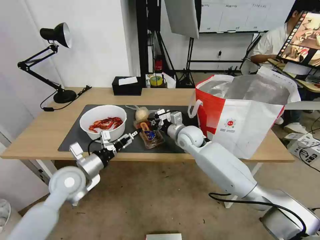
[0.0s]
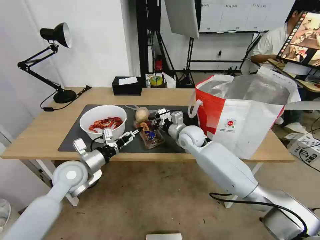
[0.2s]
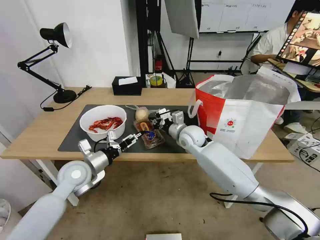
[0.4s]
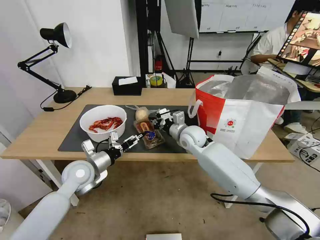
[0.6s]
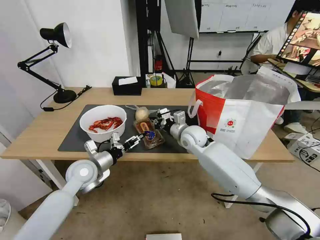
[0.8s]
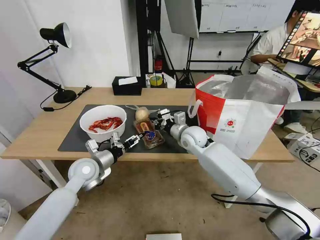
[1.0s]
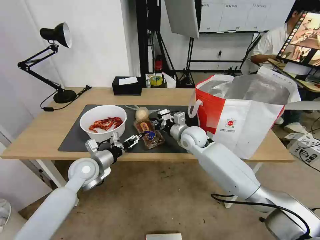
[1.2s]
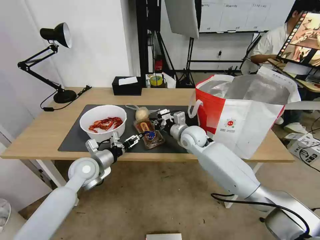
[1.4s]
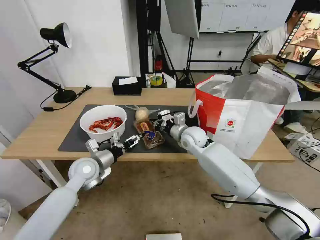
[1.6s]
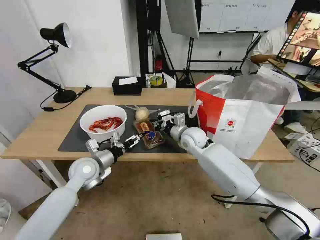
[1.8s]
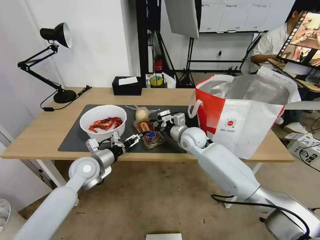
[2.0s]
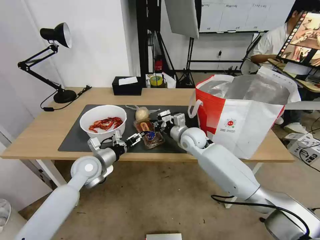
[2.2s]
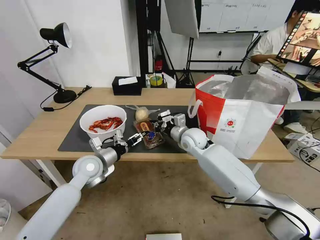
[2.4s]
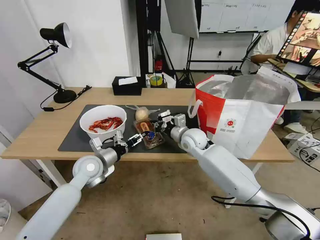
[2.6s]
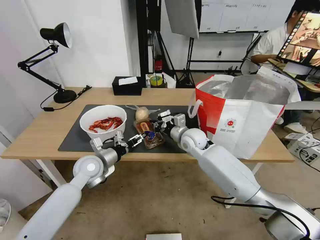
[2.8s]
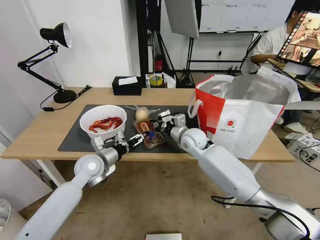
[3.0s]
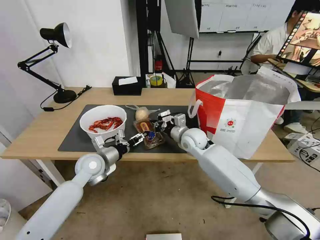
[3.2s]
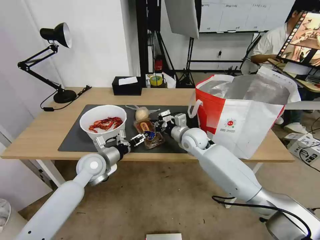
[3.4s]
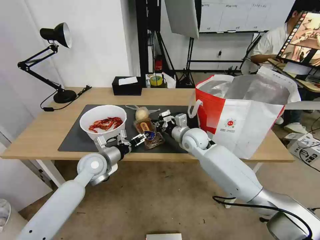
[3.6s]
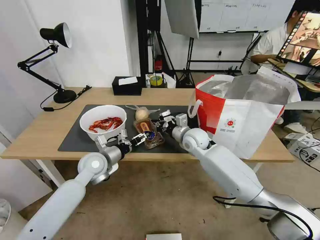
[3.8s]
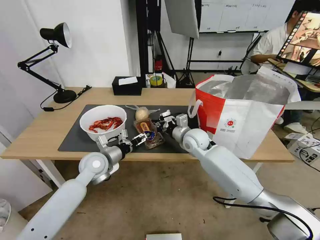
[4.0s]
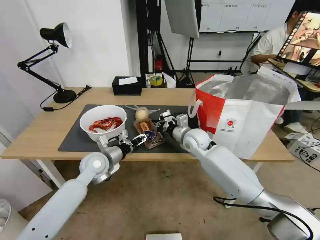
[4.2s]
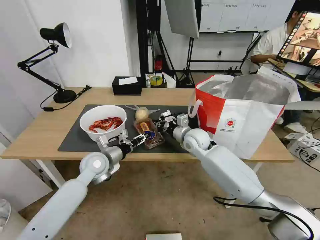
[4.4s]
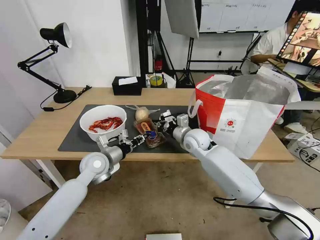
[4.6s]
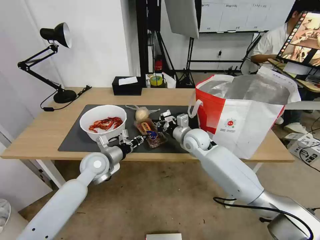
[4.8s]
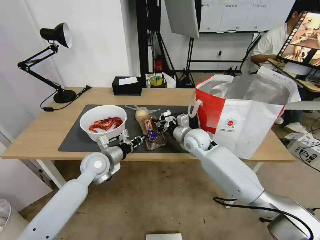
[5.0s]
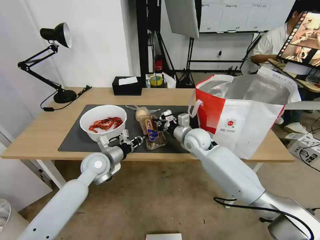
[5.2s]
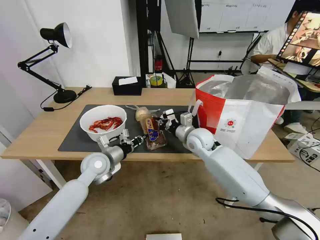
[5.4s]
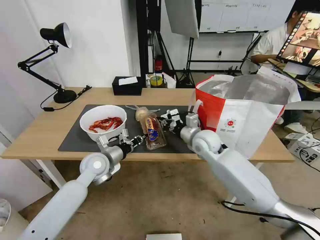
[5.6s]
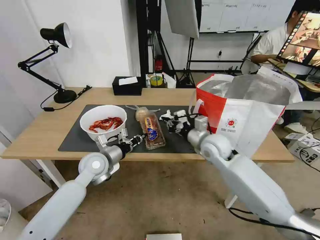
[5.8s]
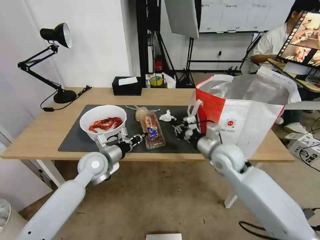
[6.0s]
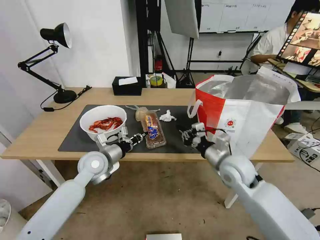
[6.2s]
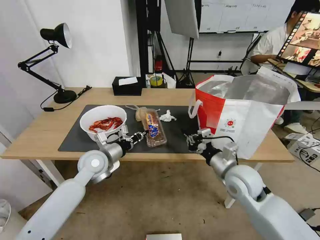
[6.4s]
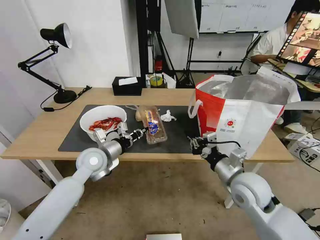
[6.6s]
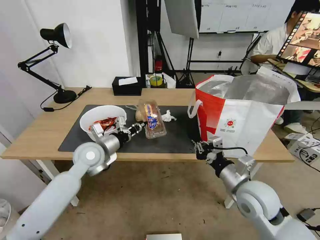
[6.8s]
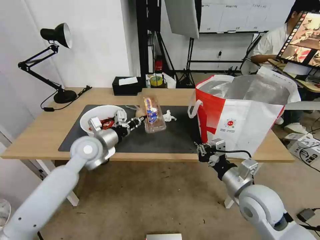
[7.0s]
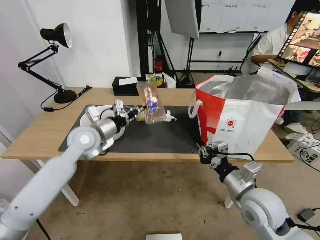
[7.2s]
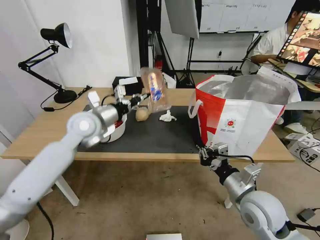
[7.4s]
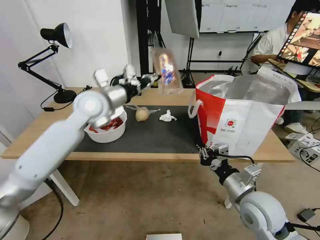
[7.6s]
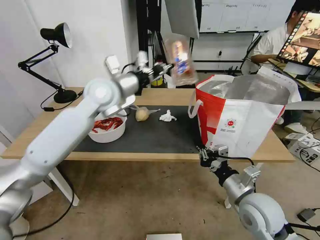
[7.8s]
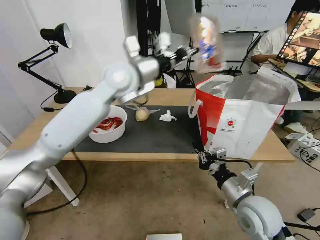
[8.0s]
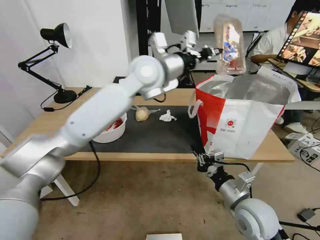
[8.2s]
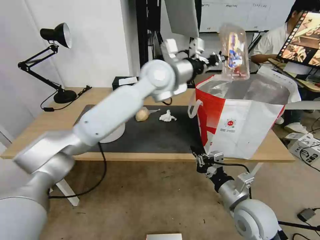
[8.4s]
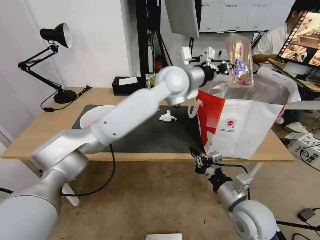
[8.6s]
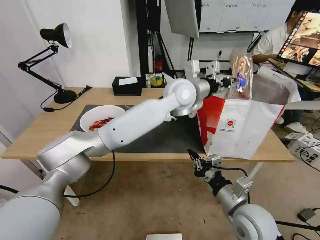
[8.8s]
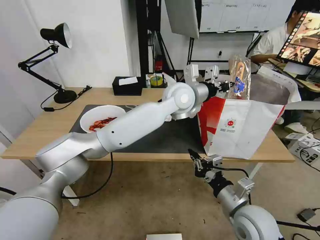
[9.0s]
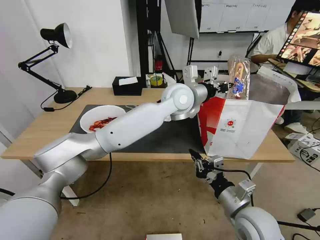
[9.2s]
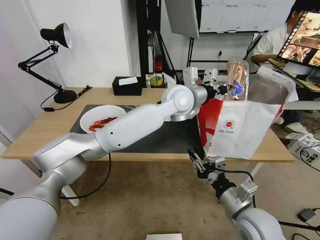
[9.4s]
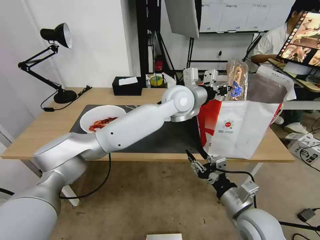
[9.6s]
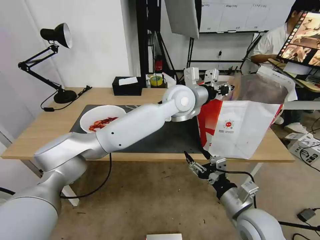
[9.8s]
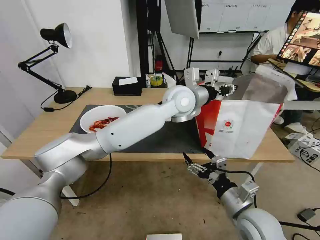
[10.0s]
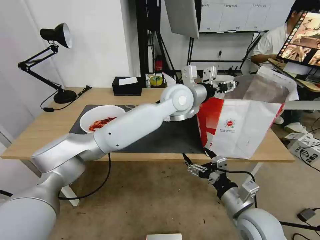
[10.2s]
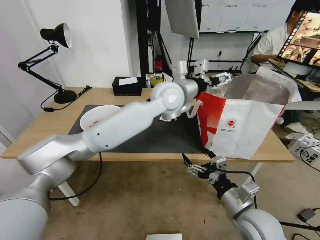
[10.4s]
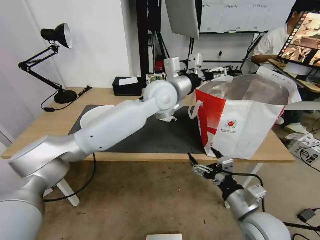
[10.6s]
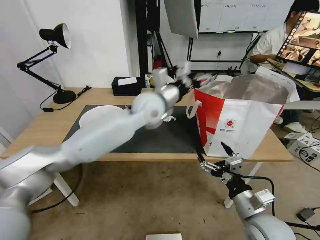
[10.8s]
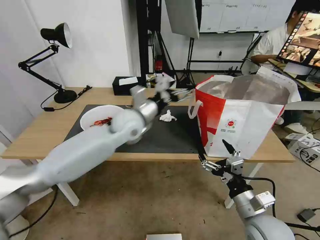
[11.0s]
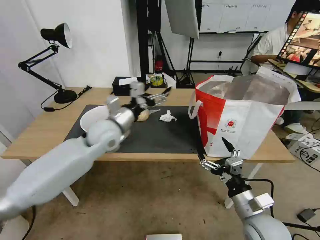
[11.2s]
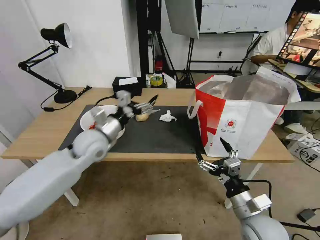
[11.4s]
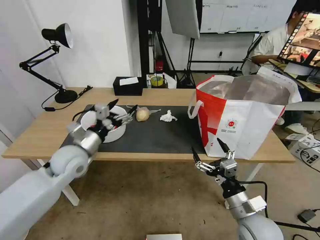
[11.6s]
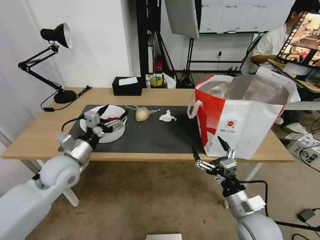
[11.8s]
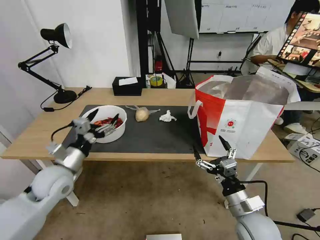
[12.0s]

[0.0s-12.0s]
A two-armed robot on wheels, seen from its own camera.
Task of the whole recording: Pick up the trash from the table and place it into the takeout bag.
0.0s to 1.6s: The left gripper is displaced forward by approximately 5 cm.
1.6s to 3.0s: There are only small adjustments of the grippers.
3.0s to 4.4s: The left gripper closes.
4.4s to 6.0s: The right gripper moves backward and to the right, about 10 cm, while the left gripper closes.
6.0s to 7.6s: The left gripper is displaced upward by approximately 20 cm, while the right gripper goes about 15 cm backward.
7.6s to 9.0s: The left gripper is displaced to the right by roughly 25 cm.
9.0s to 10.4s: The left gripper opens up. Meanwhile the right gripper opens.
10.4s to 12.0s: The left gripper is displaced to the left, downward and backward by roughly 40 cm.

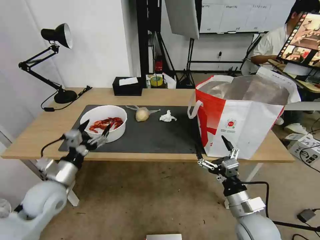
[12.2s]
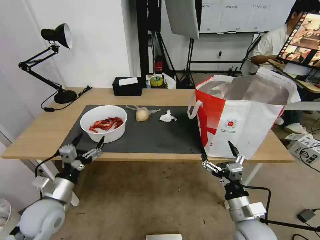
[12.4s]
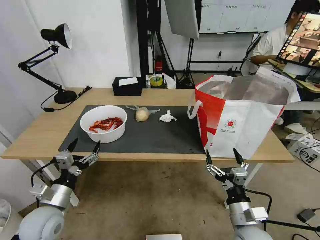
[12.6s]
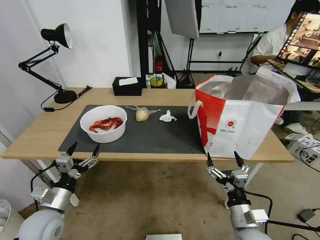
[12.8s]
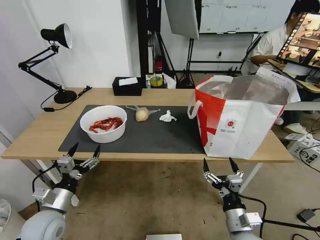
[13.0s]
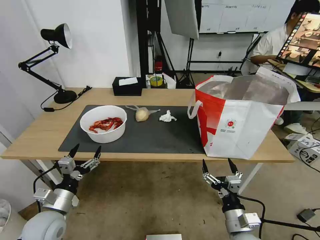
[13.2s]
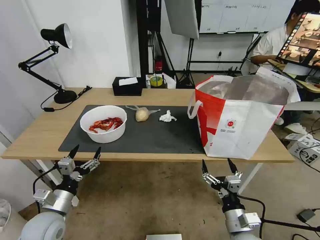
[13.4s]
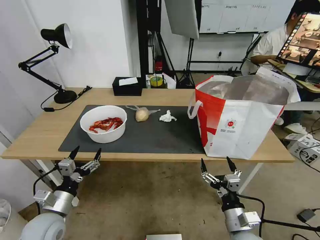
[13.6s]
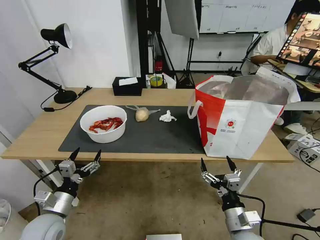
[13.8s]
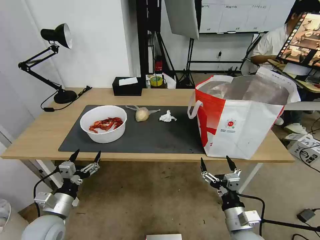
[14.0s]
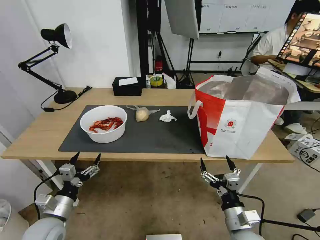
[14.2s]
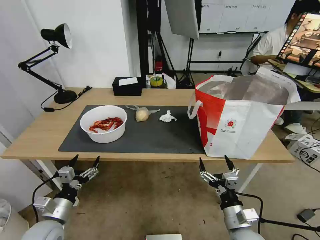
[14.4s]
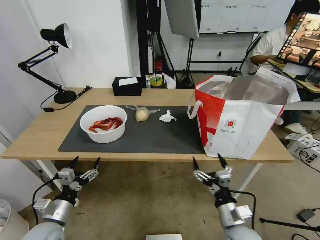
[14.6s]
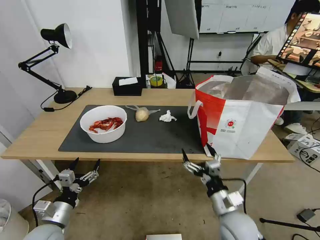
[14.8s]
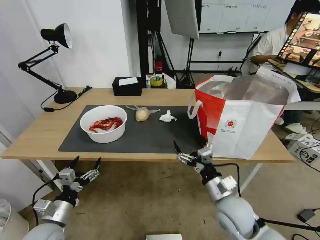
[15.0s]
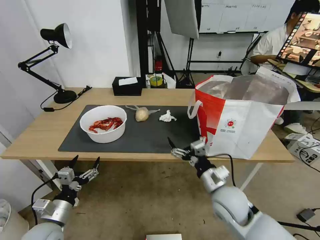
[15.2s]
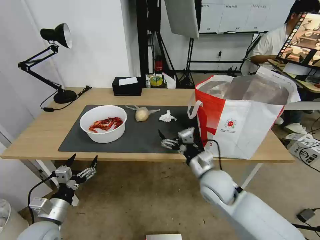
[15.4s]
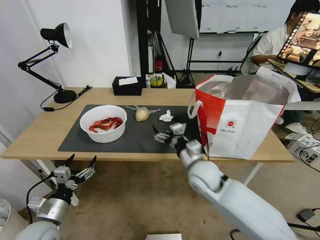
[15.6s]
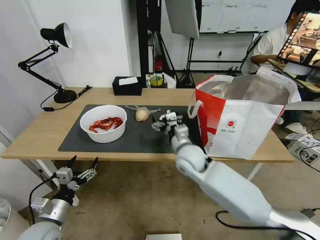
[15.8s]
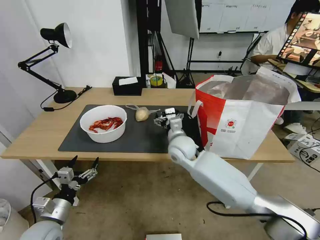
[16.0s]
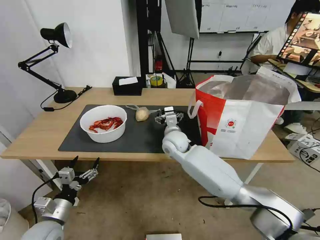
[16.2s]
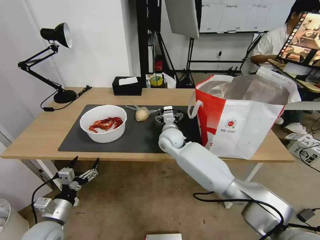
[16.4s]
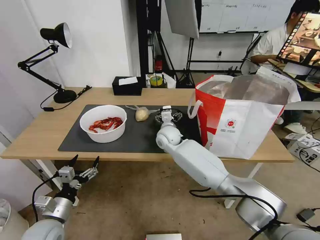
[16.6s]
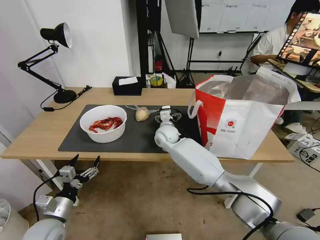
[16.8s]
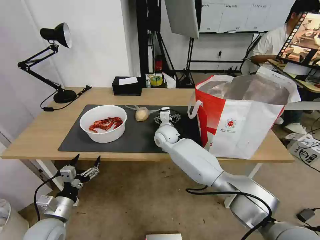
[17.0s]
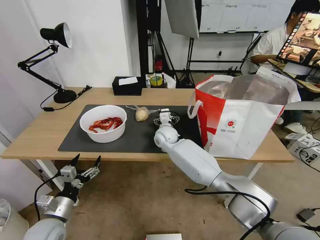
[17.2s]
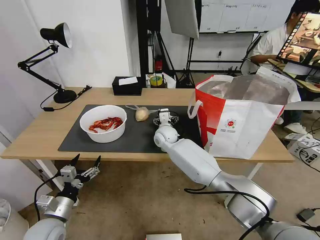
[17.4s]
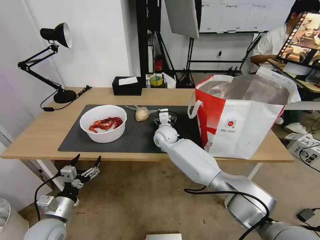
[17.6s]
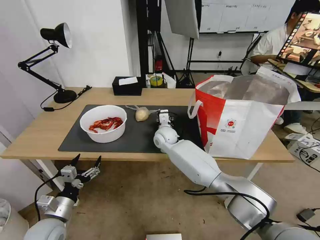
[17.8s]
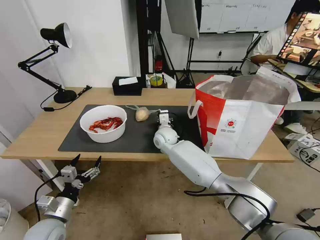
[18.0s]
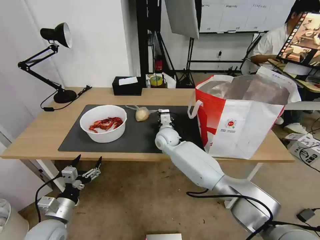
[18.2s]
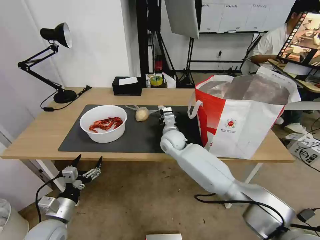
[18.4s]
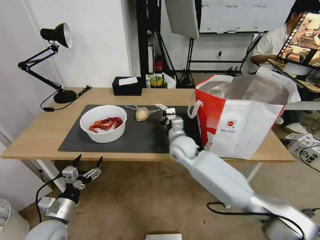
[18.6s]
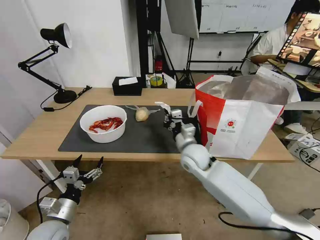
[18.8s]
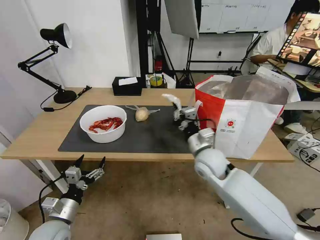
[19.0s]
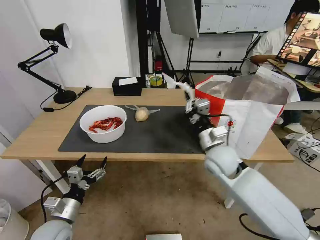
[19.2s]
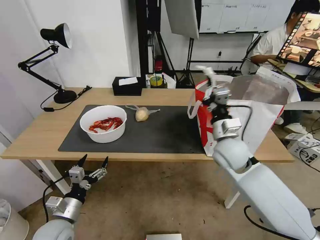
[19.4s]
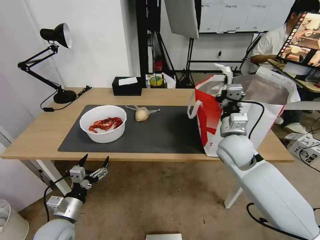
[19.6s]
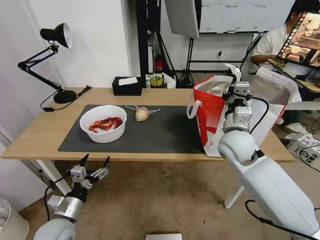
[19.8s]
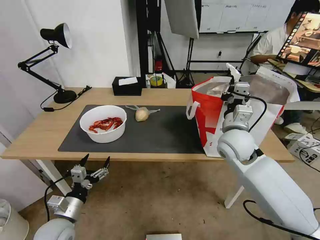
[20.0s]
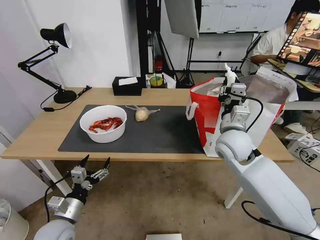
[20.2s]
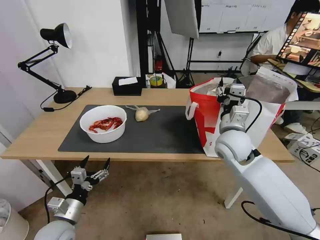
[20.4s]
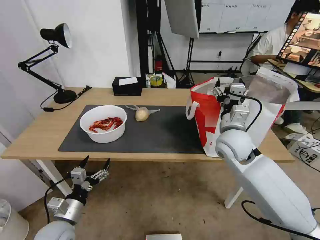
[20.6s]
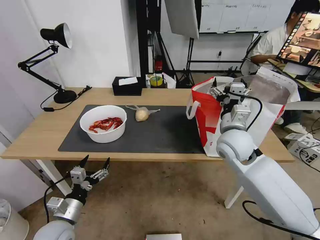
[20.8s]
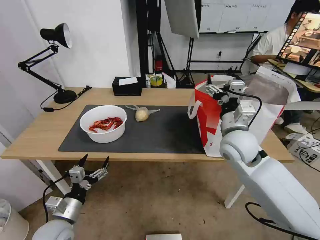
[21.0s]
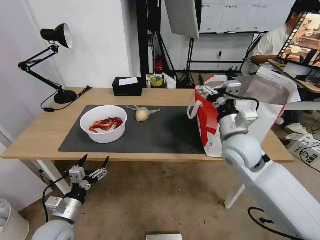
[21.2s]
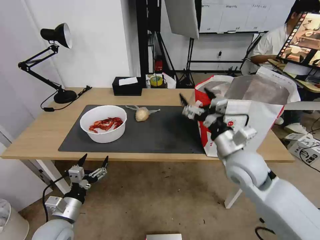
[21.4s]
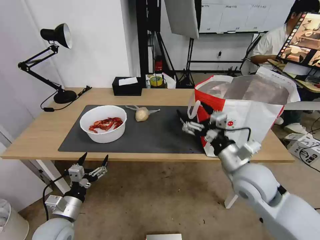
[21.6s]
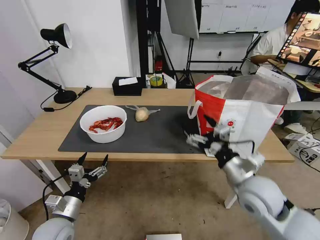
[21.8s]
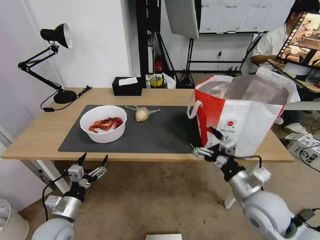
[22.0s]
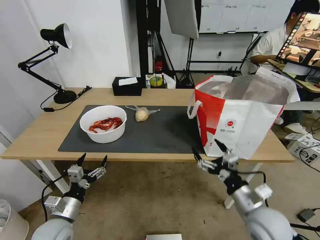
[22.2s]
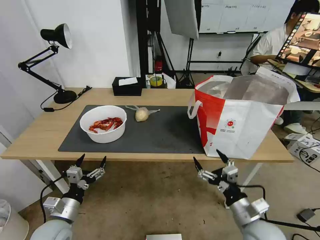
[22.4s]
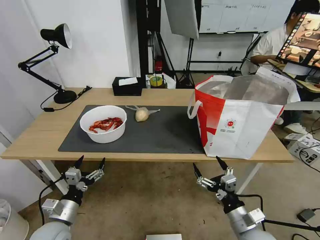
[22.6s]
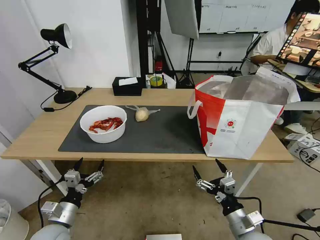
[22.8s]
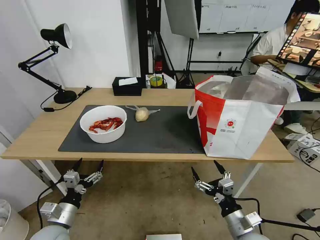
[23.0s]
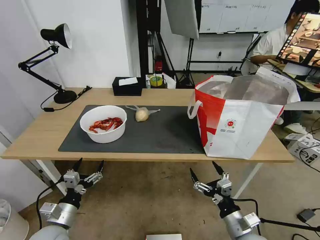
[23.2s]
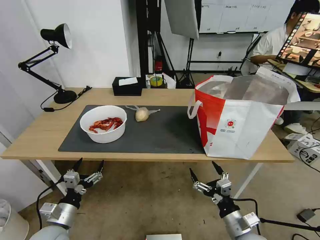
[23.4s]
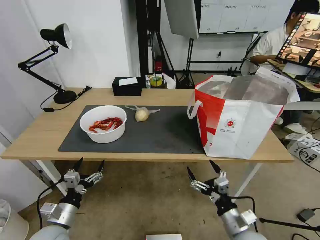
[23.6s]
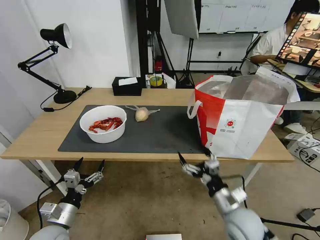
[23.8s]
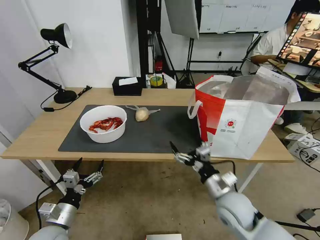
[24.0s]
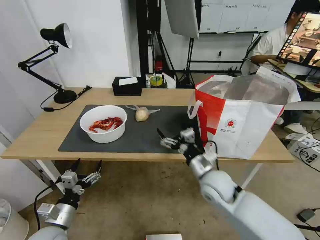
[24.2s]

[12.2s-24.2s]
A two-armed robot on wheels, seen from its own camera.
Task of the whole recording: Pick up the trash from the table and place it into the takeout bag.
12.2s to 13.8s: The right gripper ends up about 5 cm from where it was; the left gripper heads downward and backward, covering approximately 10 cm.
13.8s to 15.2s: The right gripper is displaced forward and upward by roughly 15 cm.
15.2s to 16.6s: The right gripper shifts approximately 30 cm forward and to the left.
16.6s to 18.2s: The right gripper closes its fingers.
18.2s to 19.8s: The right gripper shifts some 25 cm to the right, backward and upward.
19.8s to 21.2s: The right gripper opens up.
21.2s to 22.6s: The right gripper heads downward and backward, covering roughly 25 cm.
22.6s to 24.2s: The right gripper shifts about 20 cm forward, to the left and upward.
